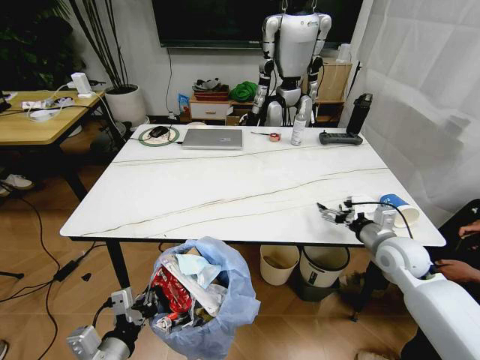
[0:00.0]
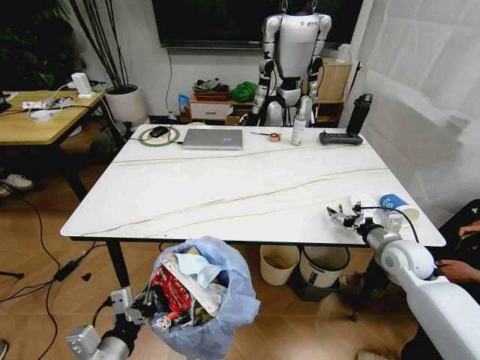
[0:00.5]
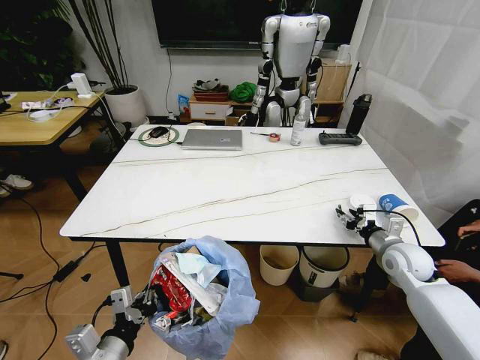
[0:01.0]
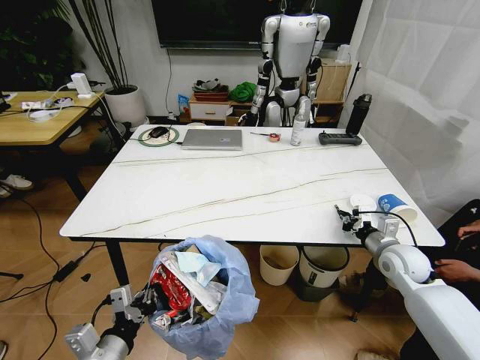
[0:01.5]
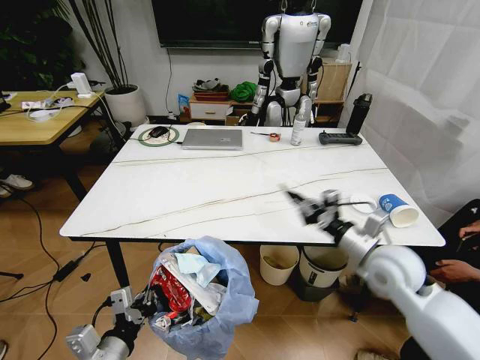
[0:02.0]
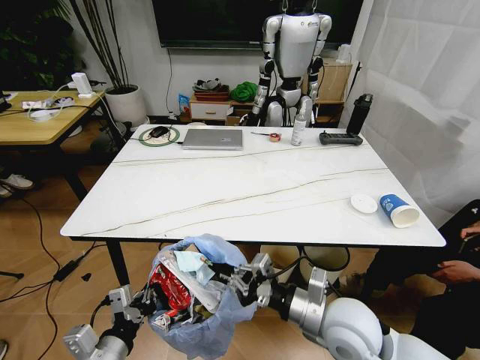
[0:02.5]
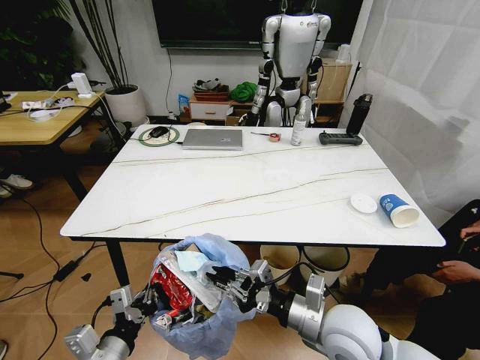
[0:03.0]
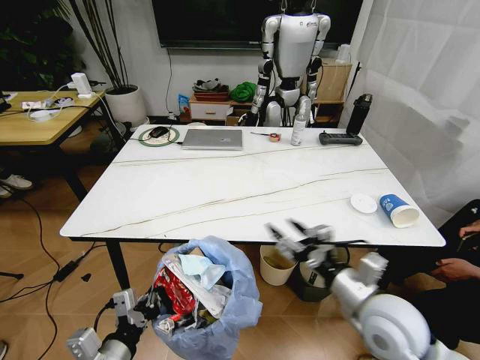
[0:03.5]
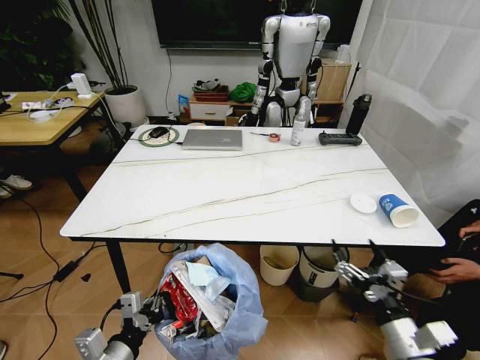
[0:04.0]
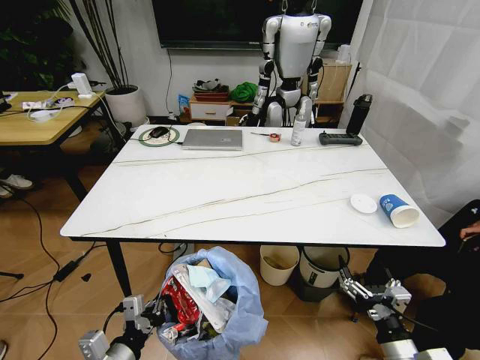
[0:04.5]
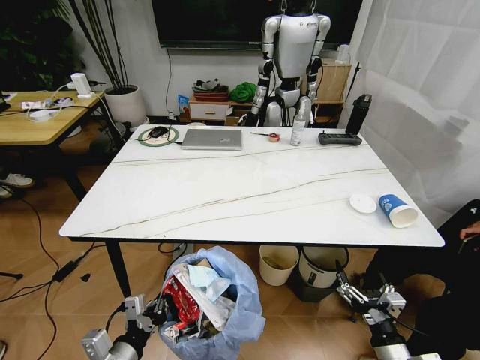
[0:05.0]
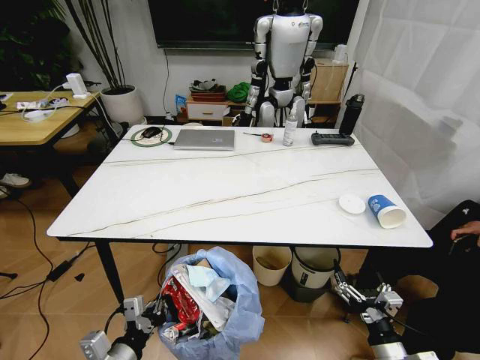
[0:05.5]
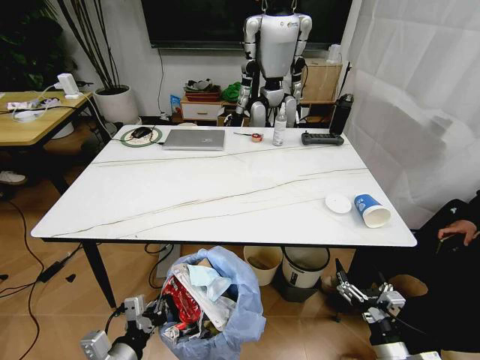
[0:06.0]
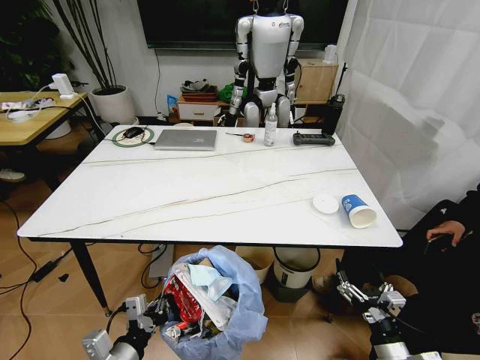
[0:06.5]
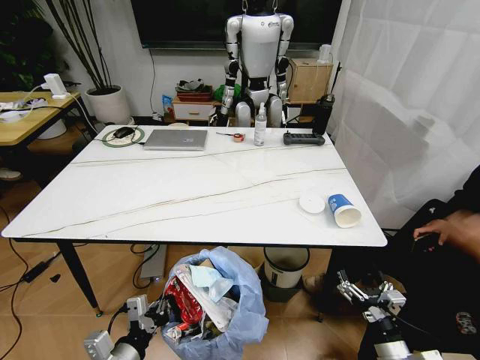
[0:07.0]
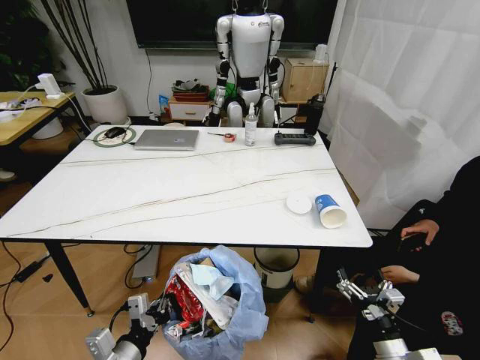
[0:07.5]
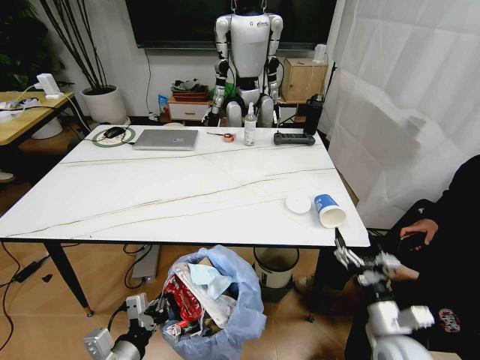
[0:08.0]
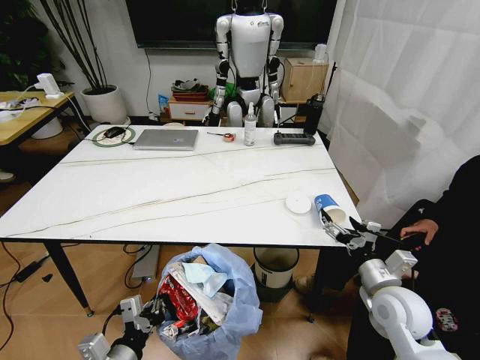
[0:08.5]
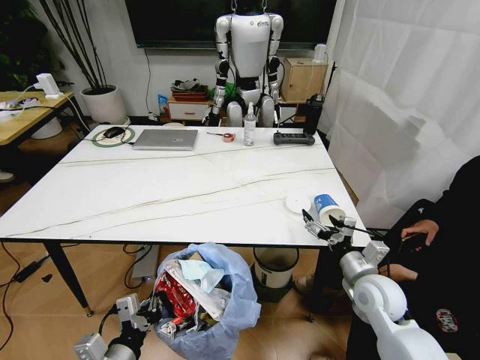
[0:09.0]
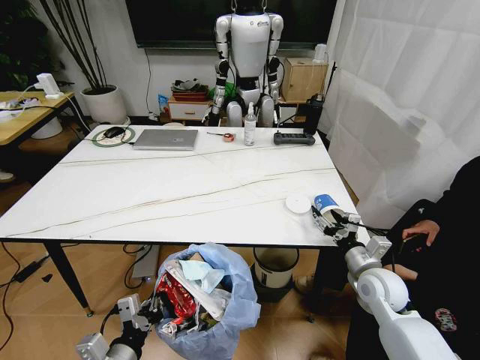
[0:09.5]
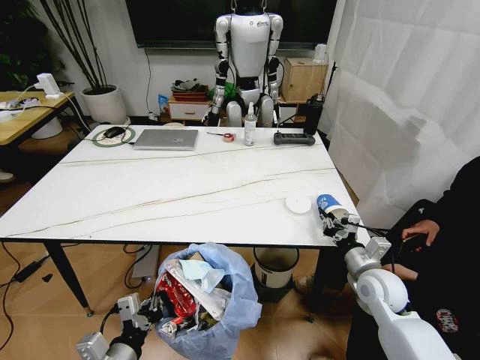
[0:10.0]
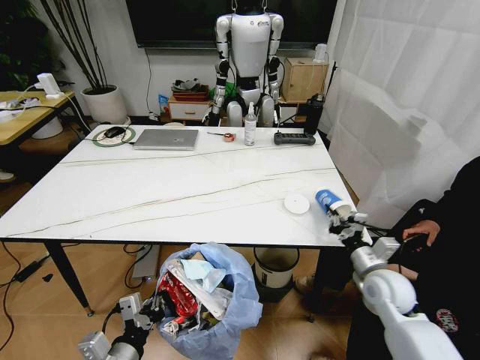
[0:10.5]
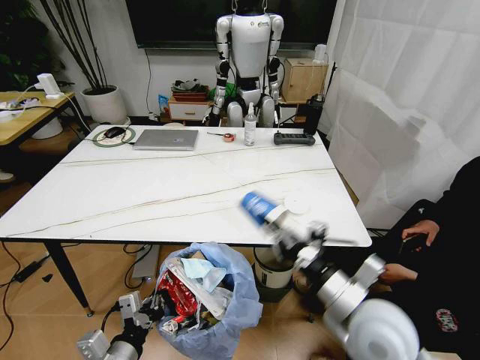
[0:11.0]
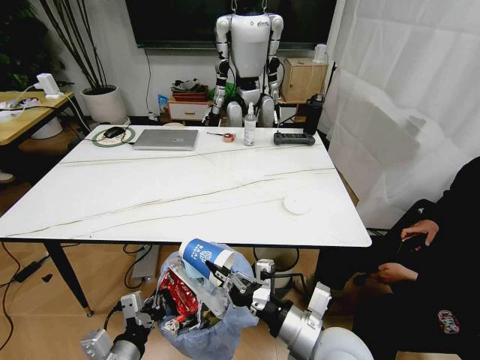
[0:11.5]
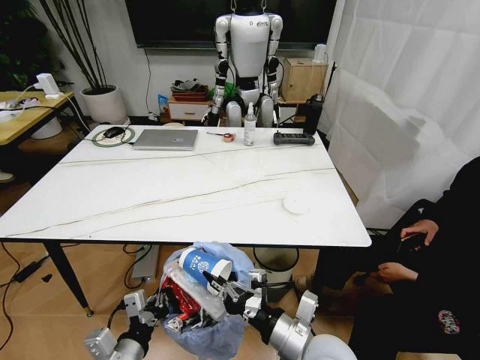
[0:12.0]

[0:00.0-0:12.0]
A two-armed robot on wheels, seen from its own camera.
Task of the whole recording: Pick up the trash bin and place the trash from the table into it.
0.0 to 2.0 s: The right gripper moves to the left and backward, roughly 10 cm, and closes up.
2.0 to 4.0 s: The right gripper travels backward and downward by approximately 20 cm, and opens up.
4.0 to 6.0 s: The right gripper is displaced downward by roughly 10 cm.
6.0 to 8.0 s: The right gripper goes about 5 cm forward.
8.0 to 10.0 s: The right gripper is displaced forward by some 15 cm, and closes.
10.0 to 12.0 s: The right gripper goes some 25 cm to the left and backward.

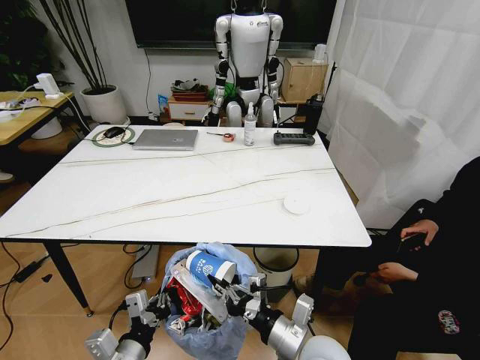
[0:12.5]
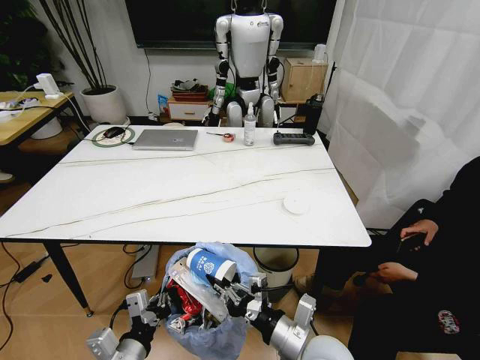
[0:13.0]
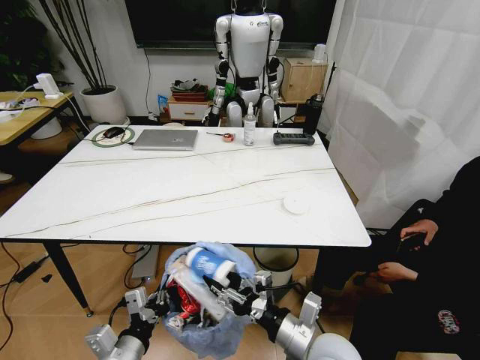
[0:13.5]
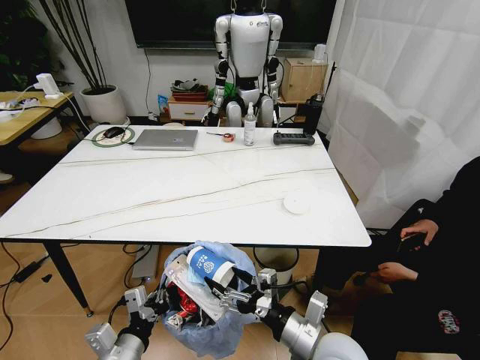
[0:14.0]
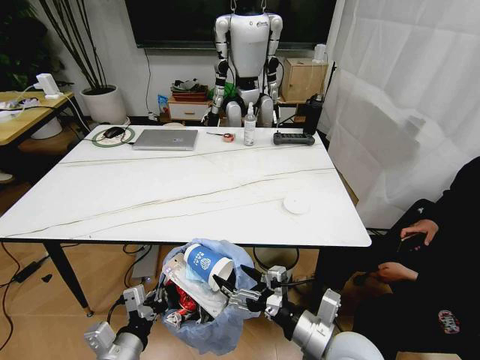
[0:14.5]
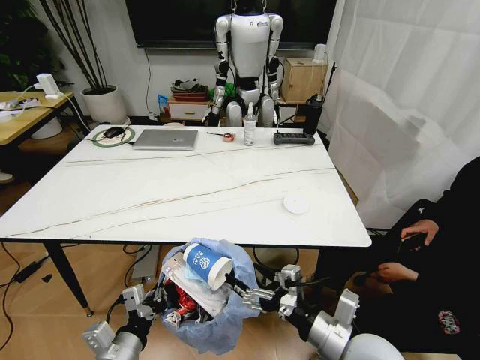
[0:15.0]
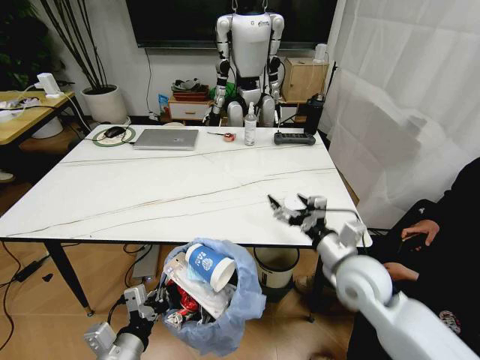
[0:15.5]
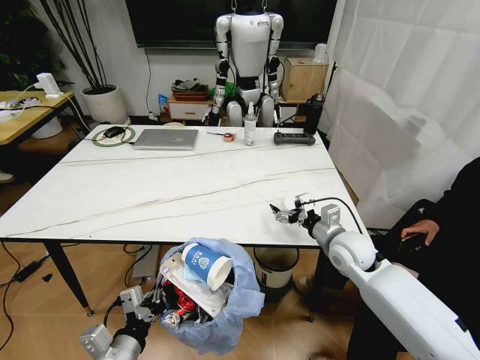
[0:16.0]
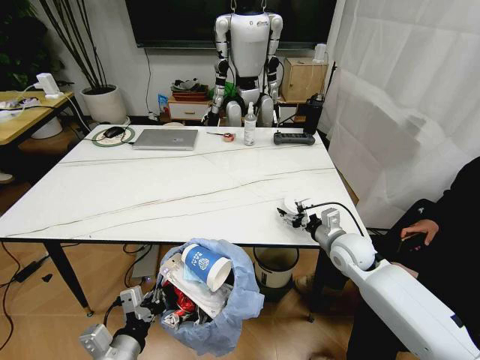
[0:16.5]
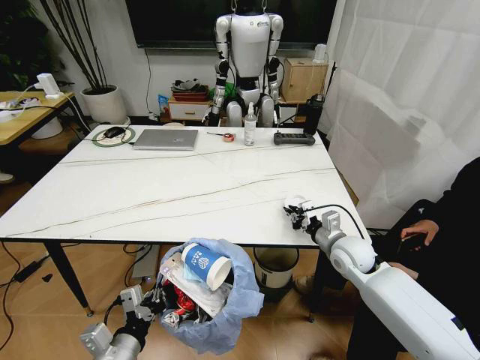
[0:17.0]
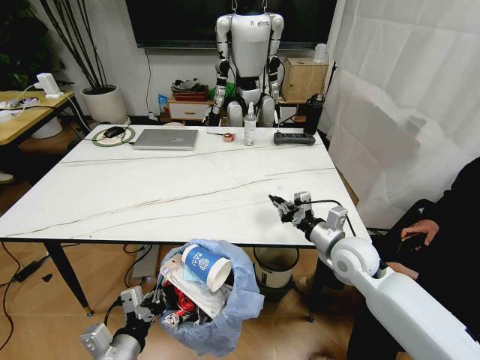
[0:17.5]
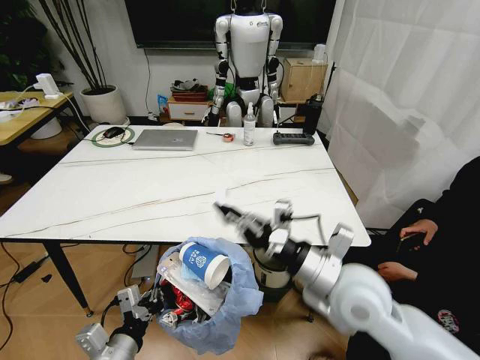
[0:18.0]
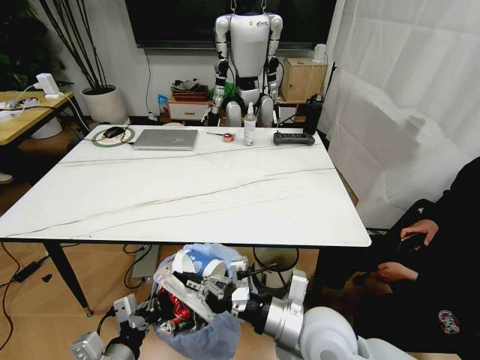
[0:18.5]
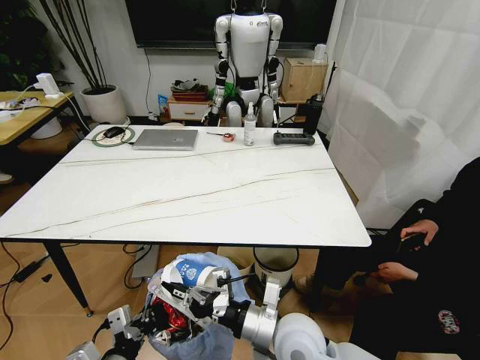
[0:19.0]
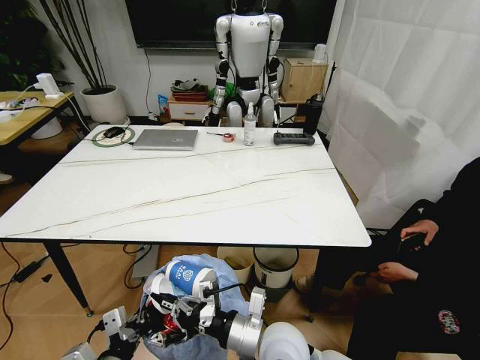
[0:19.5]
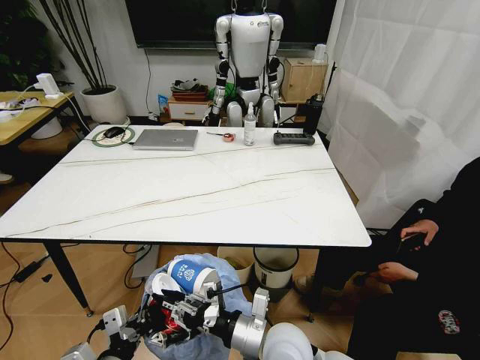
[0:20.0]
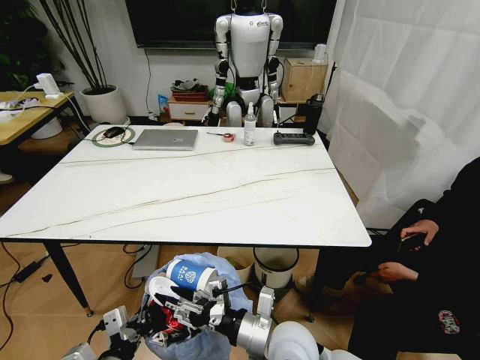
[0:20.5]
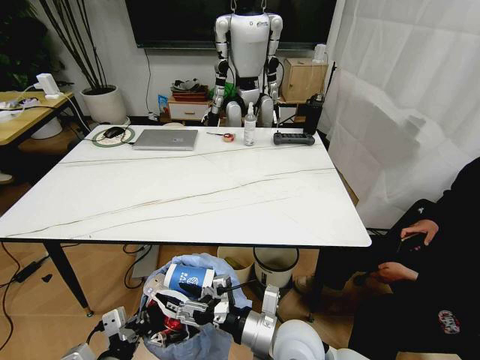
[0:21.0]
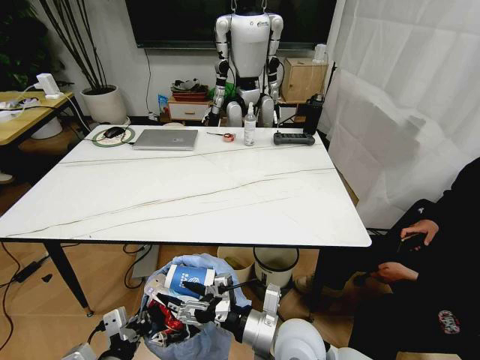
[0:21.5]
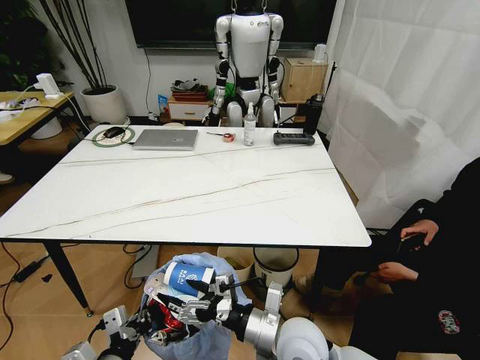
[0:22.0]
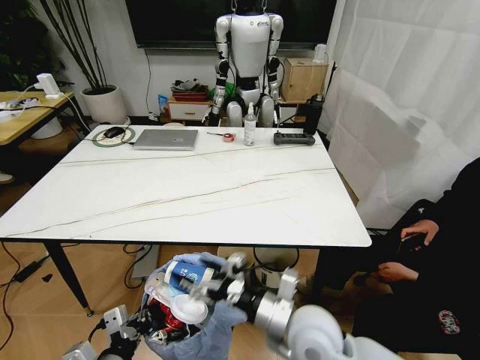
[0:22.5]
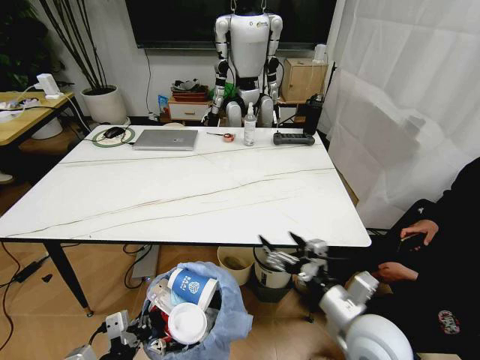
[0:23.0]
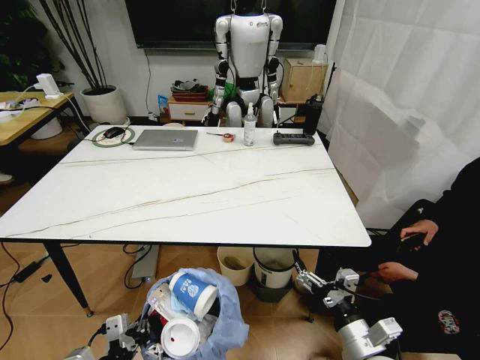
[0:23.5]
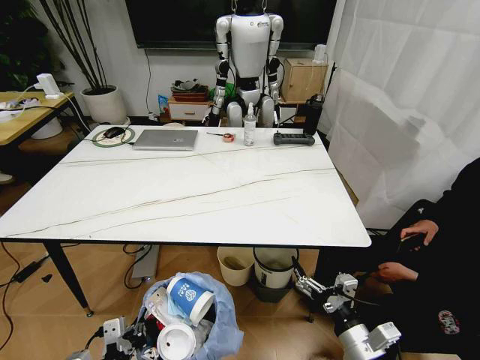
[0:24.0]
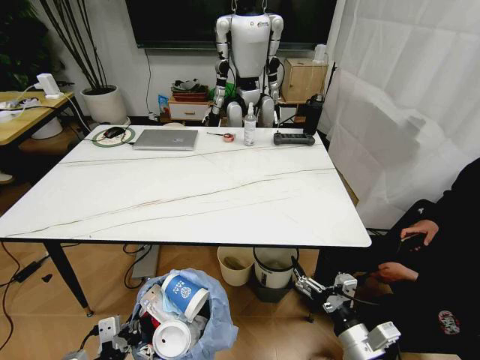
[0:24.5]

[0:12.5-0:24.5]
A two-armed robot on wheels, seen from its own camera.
Task of the whole recording: Pick up the trash bin and place the trash from the table into it.
12.5 to 14.5 s: The right gripper shifts by about 5 cm, and opens up.
14.5 to 16.5 s: The right gripper is displaced forward by some 25 cm.
16.5 to 18.5 s: The right gripper heads backward and to the left, covering about 25 cm, and closes.
18.5 to 20.5 s: The right gripper travels downward by roughly 5 cm, and opens up.
20.5 to 22.5 s: The right gripper moves some 5 cm, and opens up.
22.5 to 24.5 s: The right gripper goes about 15 cm to the right, downward and backward.

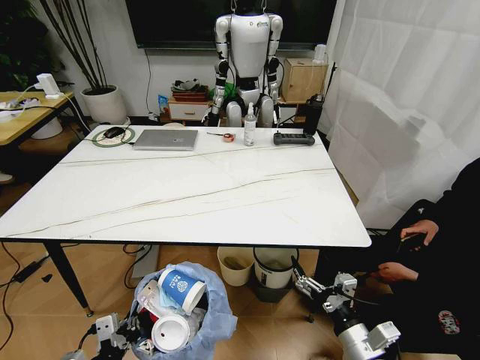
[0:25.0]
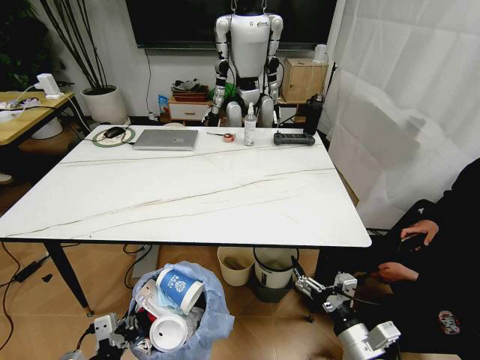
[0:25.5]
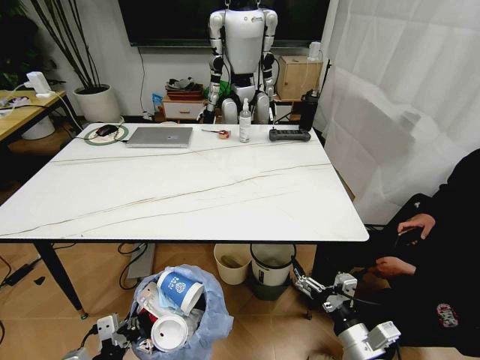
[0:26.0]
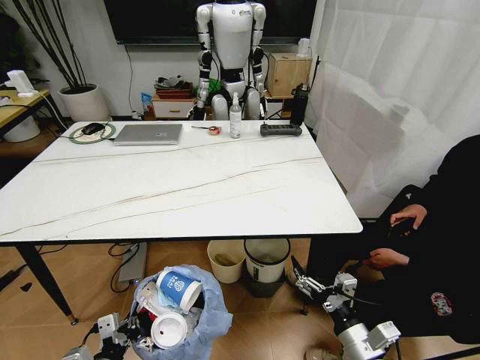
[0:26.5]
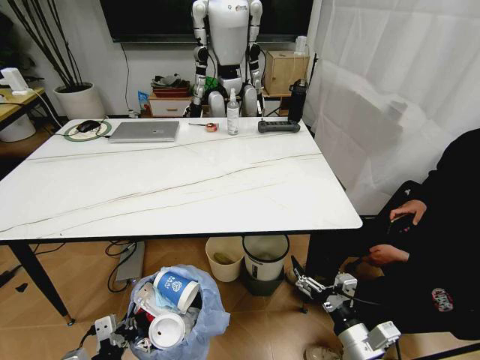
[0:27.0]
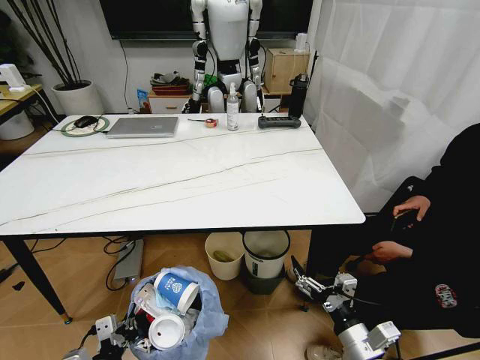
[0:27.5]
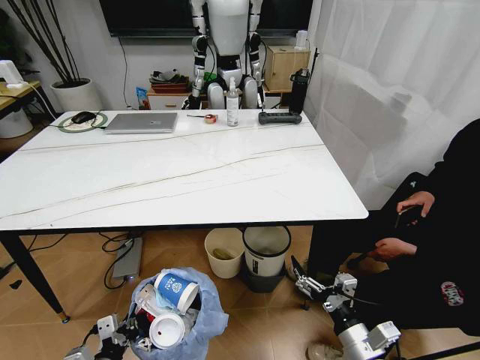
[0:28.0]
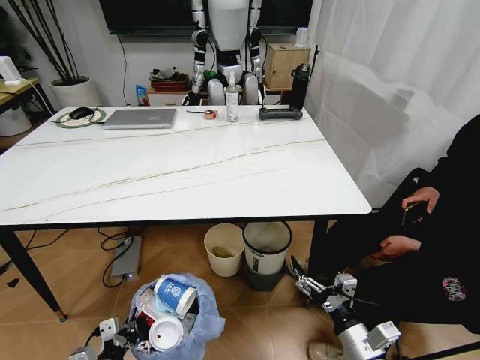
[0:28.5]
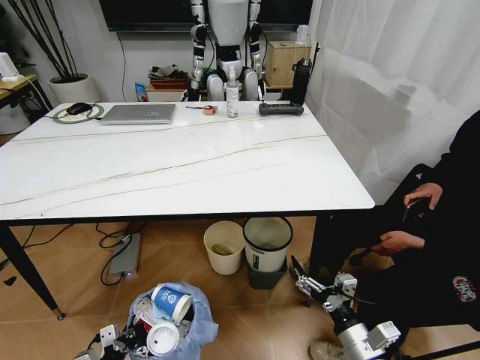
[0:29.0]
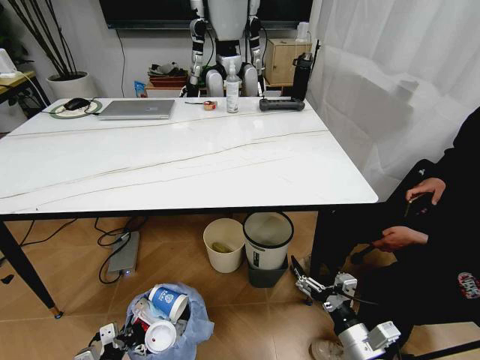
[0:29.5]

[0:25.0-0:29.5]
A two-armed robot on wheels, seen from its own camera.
Task of the whole recording: Pick up the trash bin and place the trash from the table into it.
27.0 to 29.5 s: The left gripper travels downward by about 10 cm.
